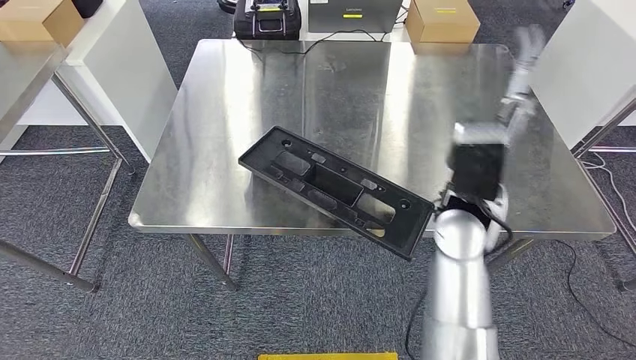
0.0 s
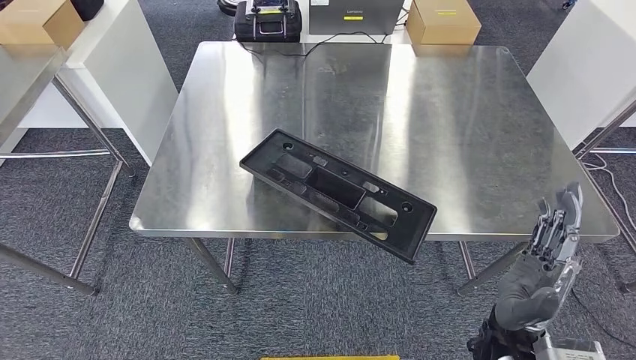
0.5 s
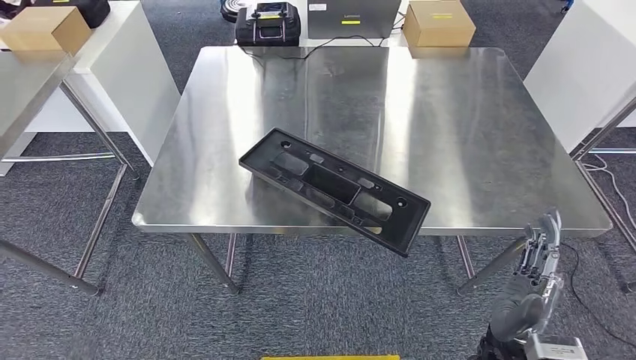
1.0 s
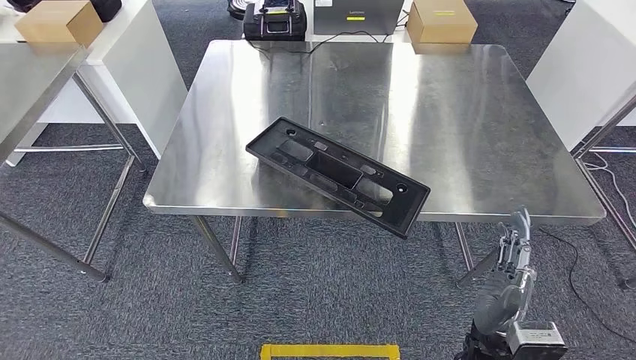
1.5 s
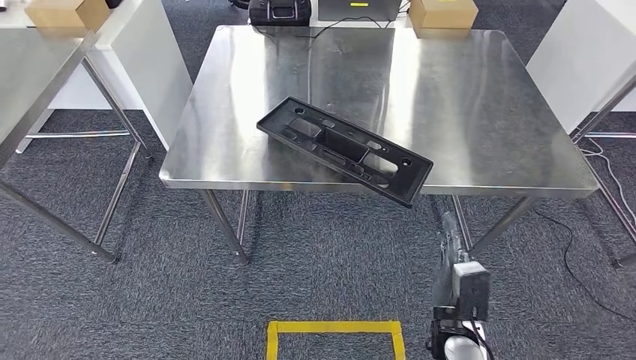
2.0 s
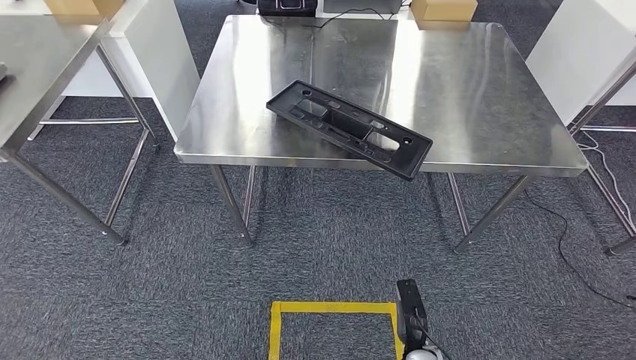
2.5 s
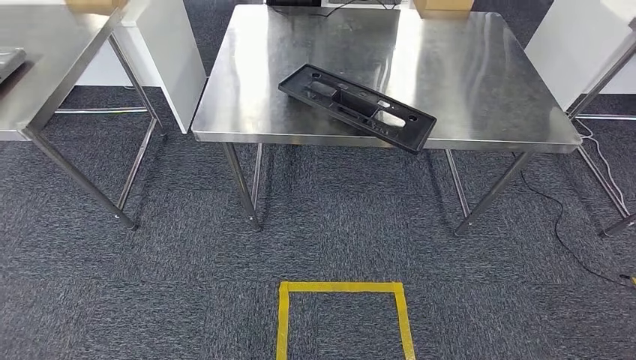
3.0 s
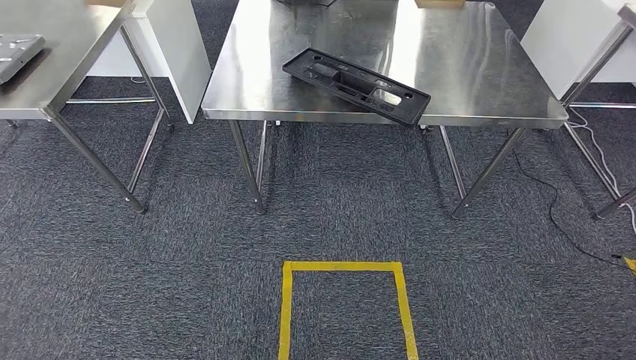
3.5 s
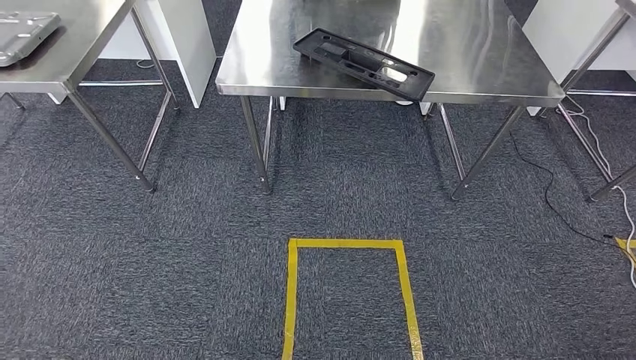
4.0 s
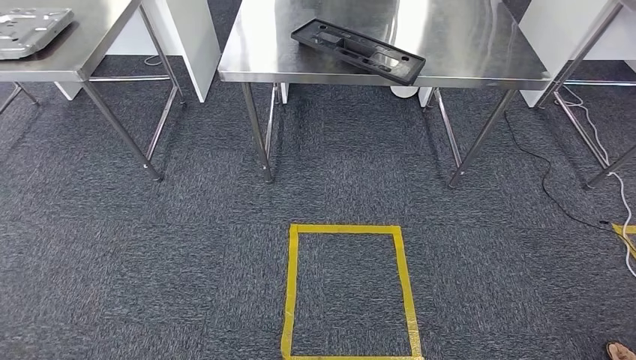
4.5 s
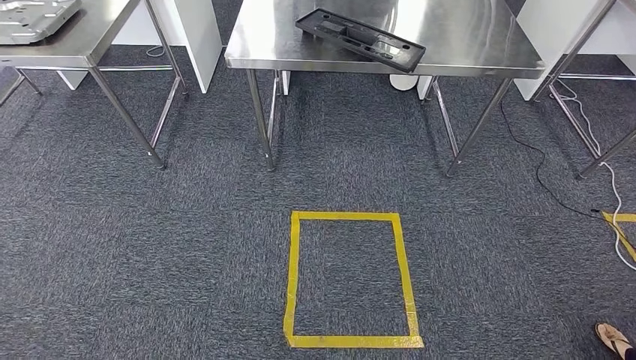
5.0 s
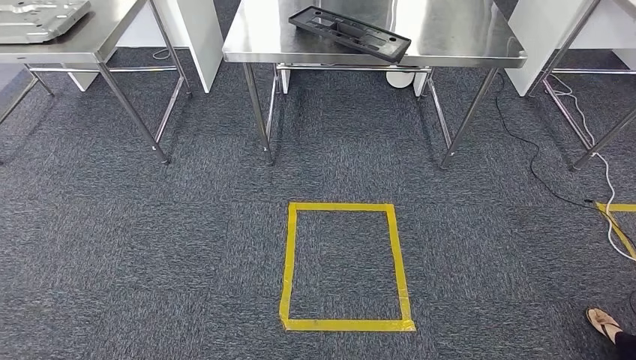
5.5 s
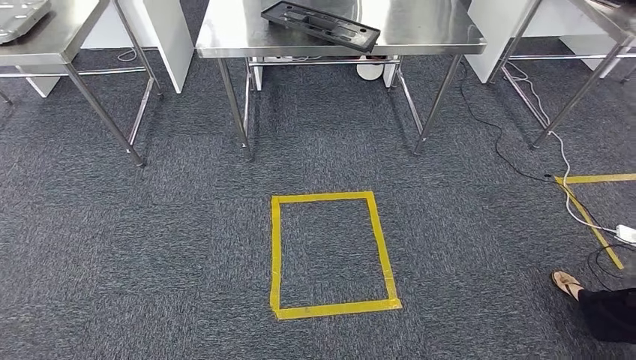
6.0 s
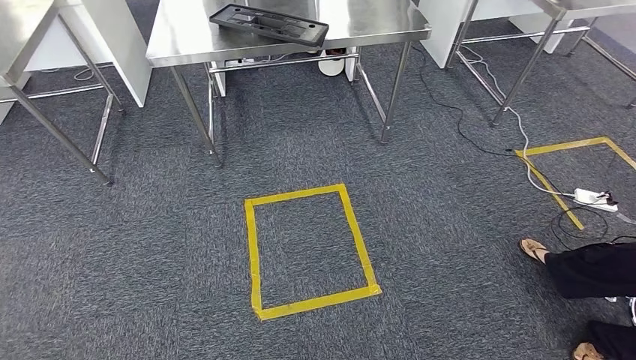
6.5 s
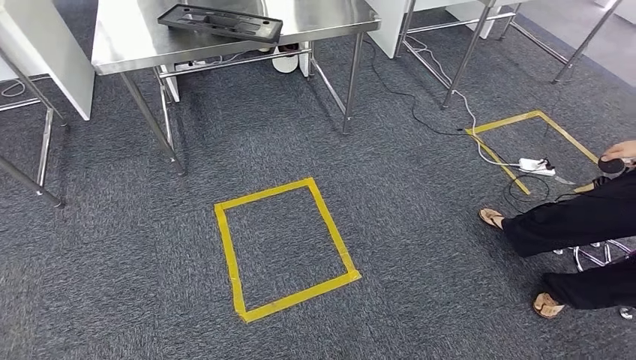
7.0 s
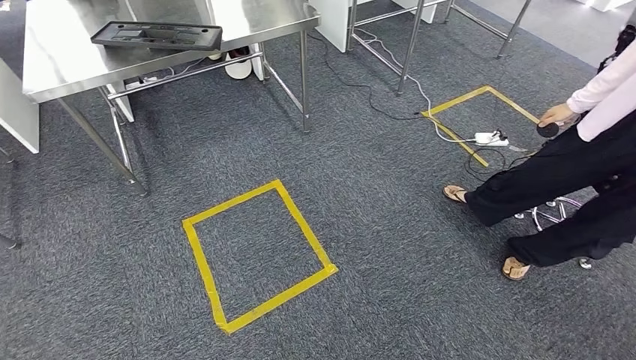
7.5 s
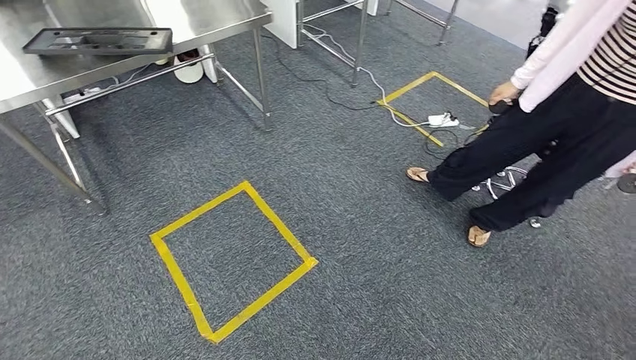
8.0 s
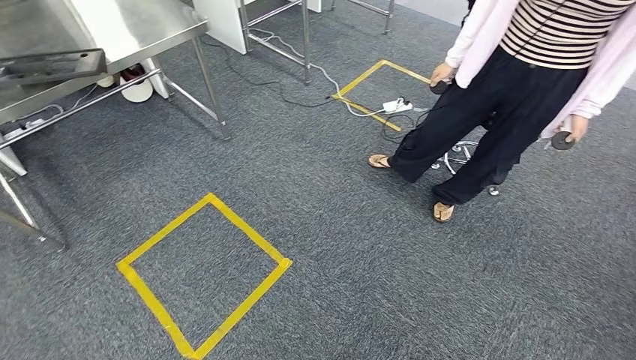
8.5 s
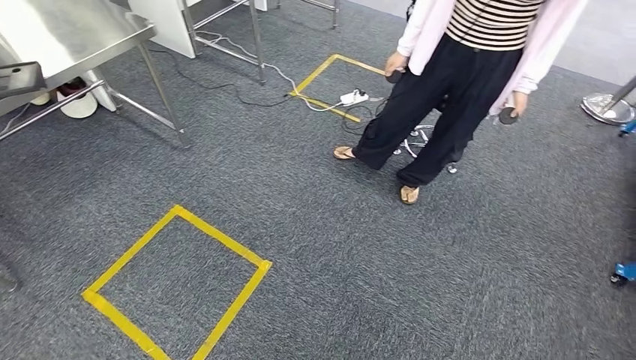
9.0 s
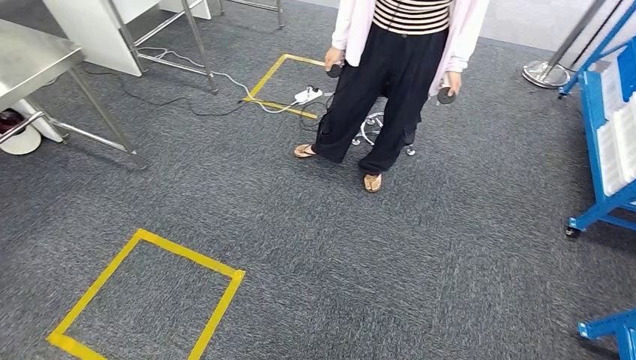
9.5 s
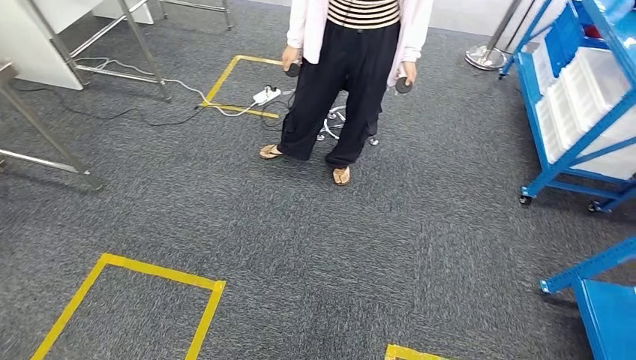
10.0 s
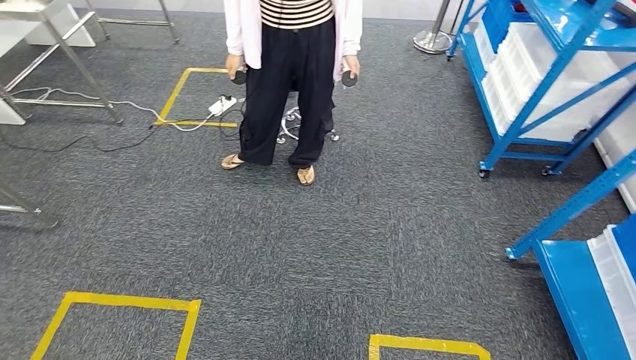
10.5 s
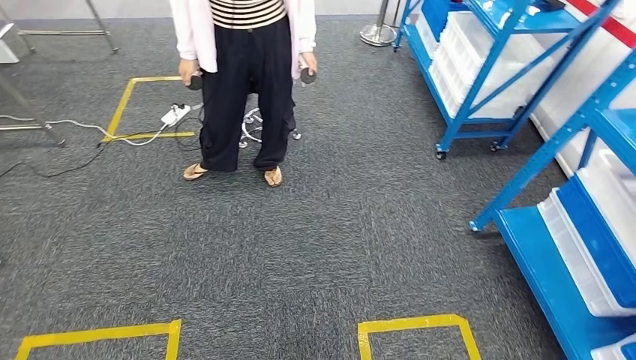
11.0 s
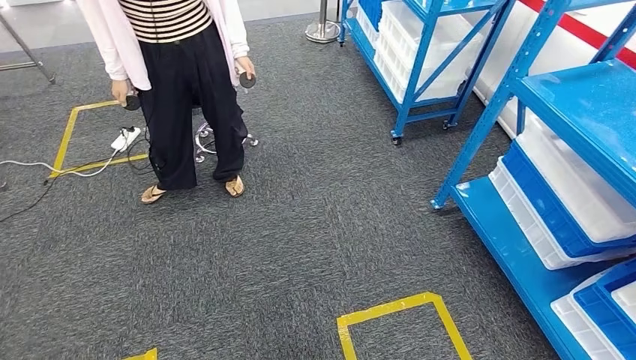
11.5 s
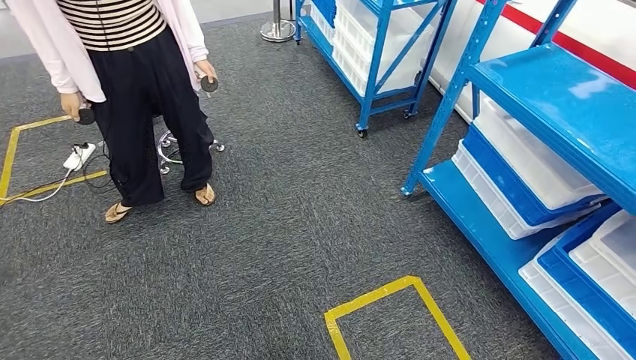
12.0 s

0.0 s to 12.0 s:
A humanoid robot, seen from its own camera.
Step, 0.0 to 4.5 s: Insert the large material into the corresponding slot on the workbench.

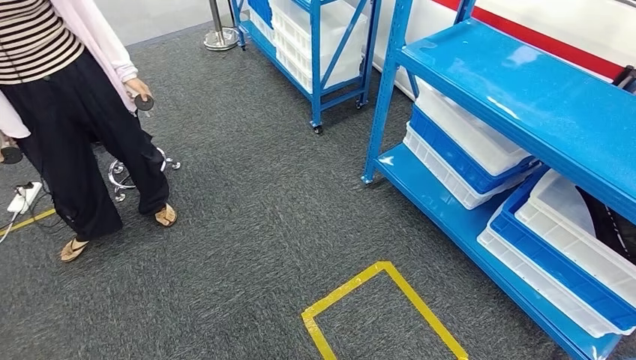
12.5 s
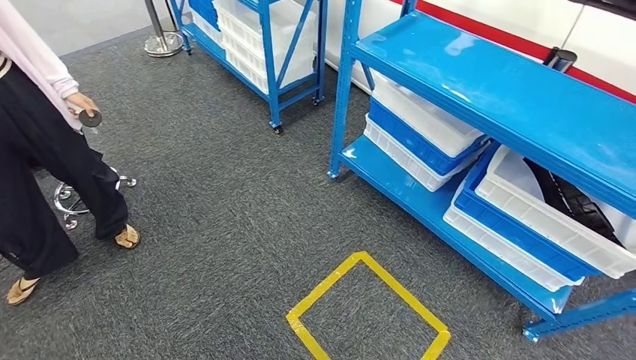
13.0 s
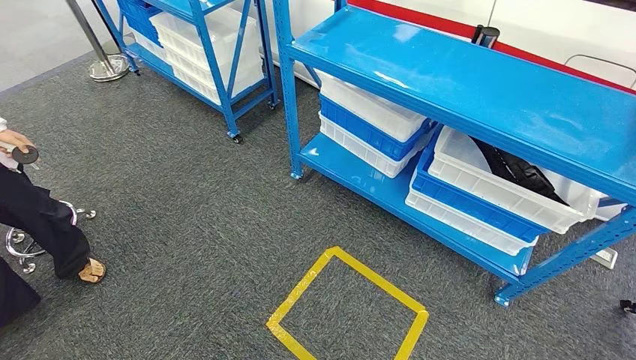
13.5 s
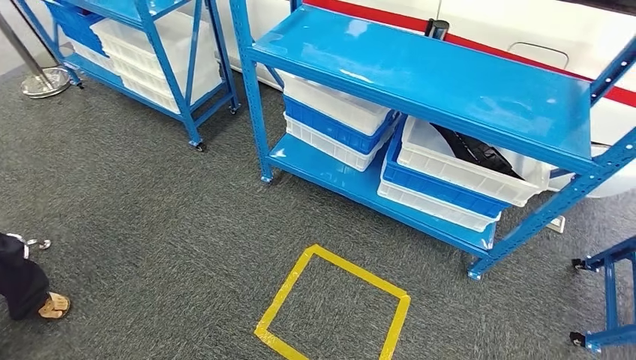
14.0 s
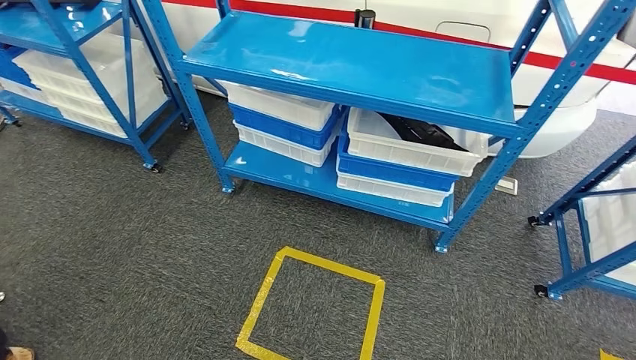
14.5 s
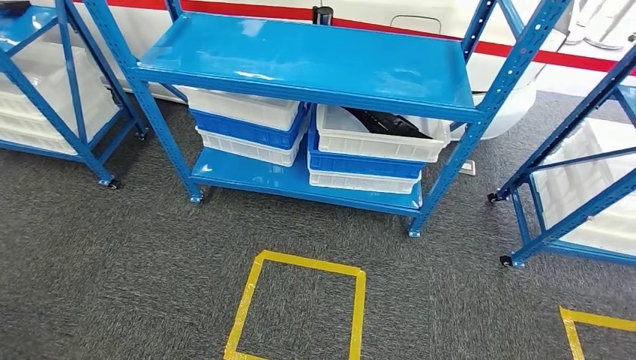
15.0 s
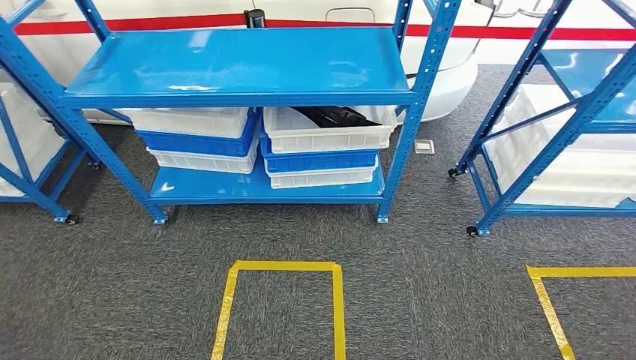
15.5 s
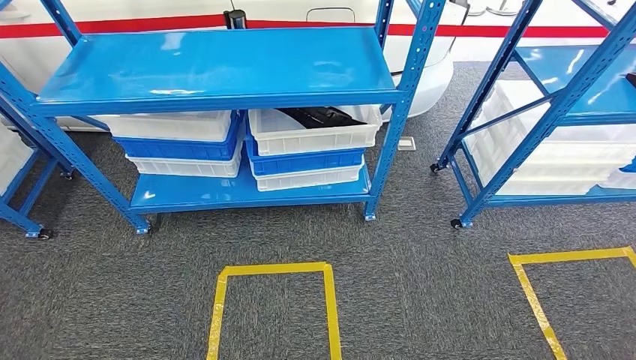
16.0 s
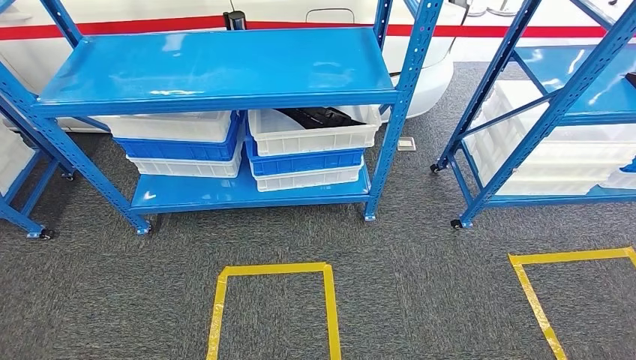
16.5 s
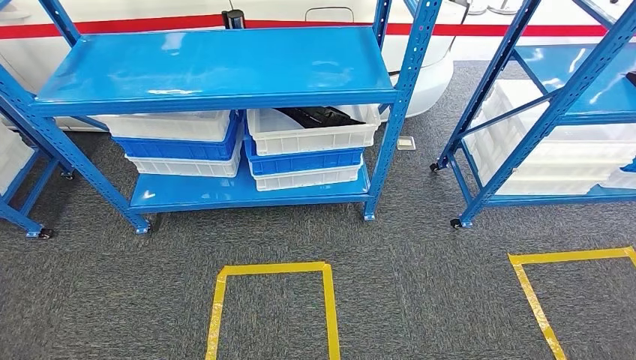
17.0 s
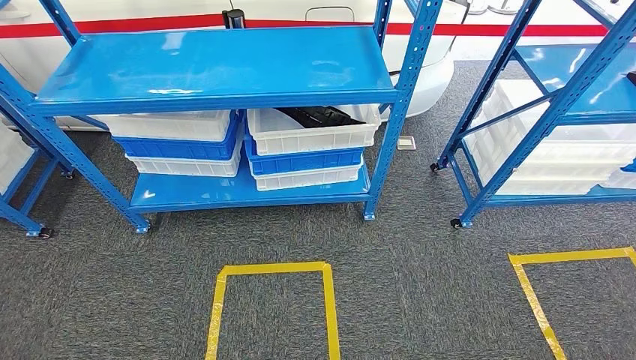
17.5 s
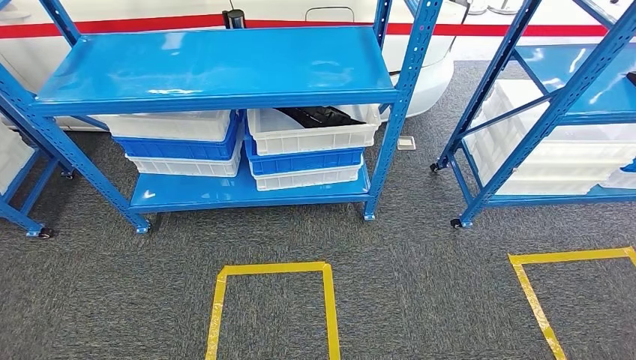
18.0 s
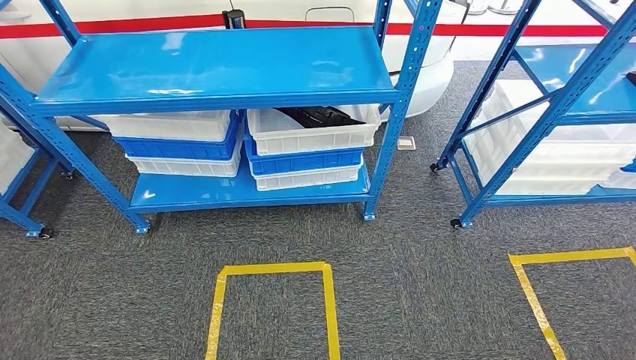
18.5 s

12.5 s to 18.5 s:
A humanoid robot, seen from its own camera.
Step, 12.5 to 18.5 s: Move to the initial position of the shelf.
16.5 to 18.5 s: The left hand shifts about 10 cm to the left and backward. Meanwhile the right hand travels backward by about 5 cm.
